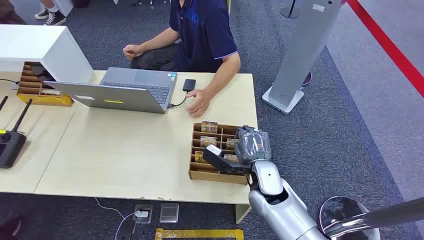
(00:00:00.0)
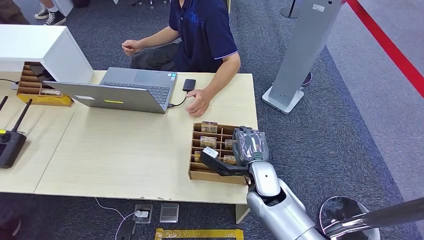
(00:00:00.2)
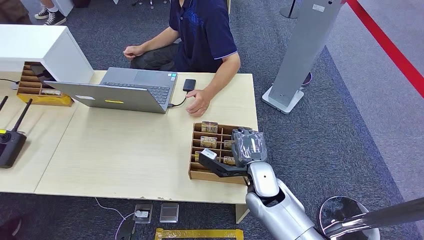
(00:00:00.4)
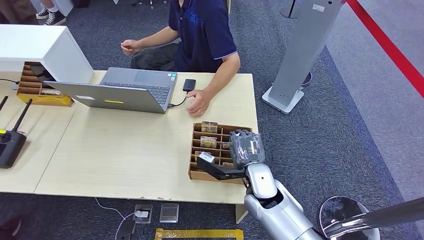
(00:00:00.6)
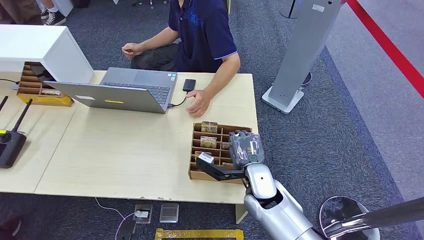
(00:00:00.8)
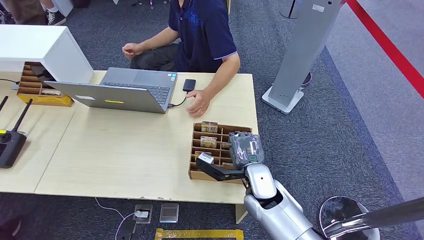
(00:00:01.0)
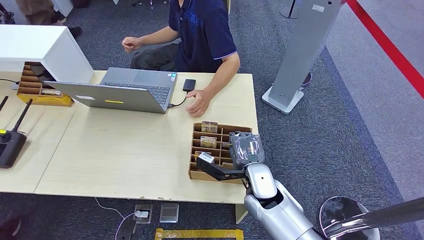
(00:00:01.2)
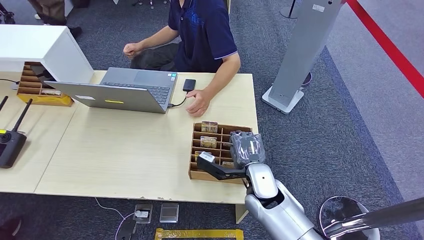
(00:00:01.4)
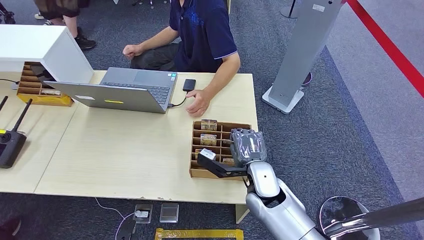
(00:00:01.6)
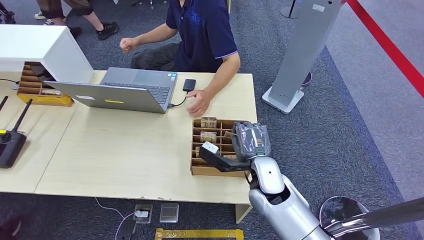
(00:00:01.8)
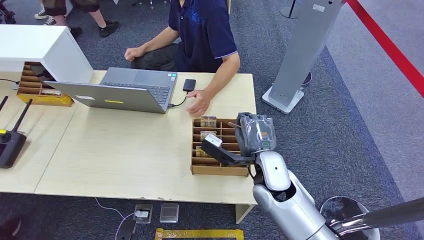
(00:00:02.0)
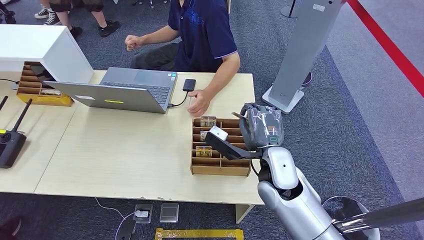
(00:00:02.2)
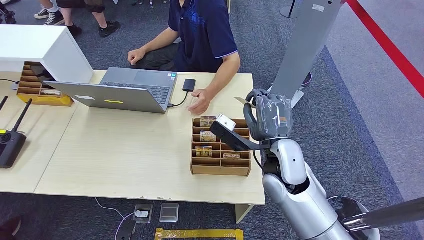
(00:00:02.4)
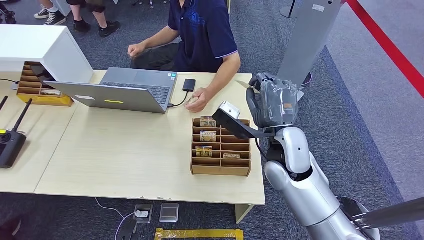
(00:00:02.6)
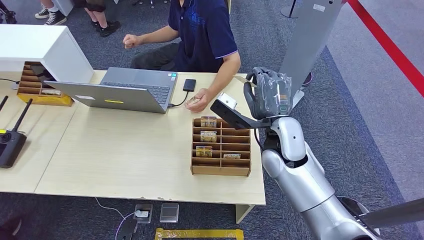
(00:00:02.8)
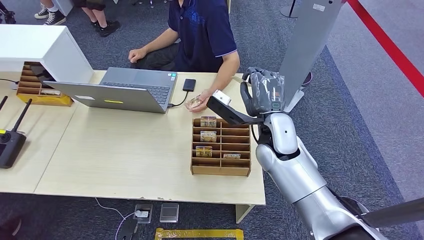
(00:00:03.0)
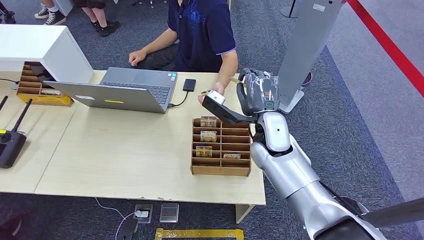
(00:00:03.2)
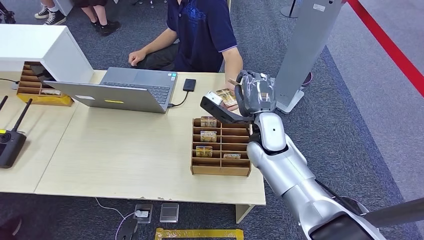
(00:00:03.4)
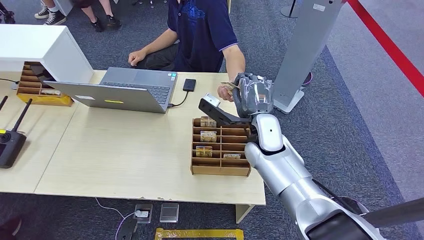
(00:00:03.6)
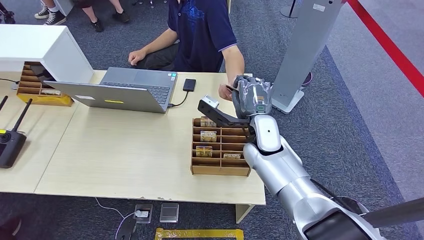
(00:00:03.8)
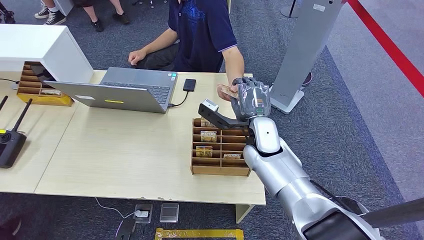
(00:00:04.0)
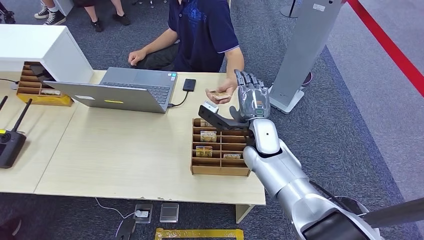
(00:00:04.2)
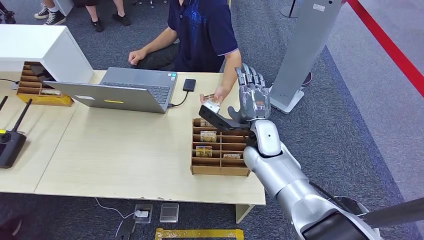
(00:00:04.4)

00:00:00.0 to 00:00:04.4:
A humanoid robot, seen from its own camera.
Step, 00:00:00.0 to 00:00:02.0: Pick up the room card from the card holder.
Step, 00:00:02.8 to 00:00:04.4: Hand the room card to the target.
00:00:01.4 to 00:00:03.0: The right hand heads forward and upward, covering some 10 cm.

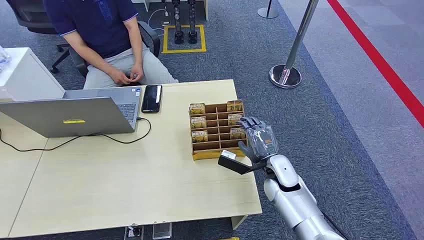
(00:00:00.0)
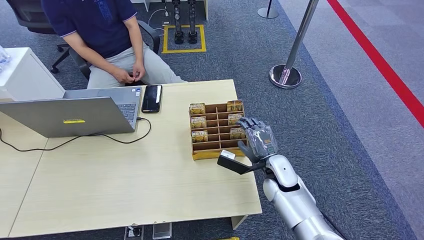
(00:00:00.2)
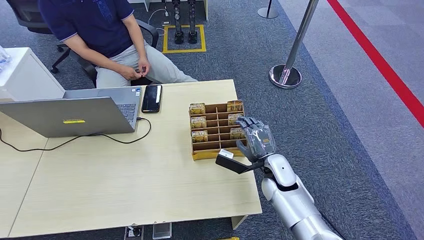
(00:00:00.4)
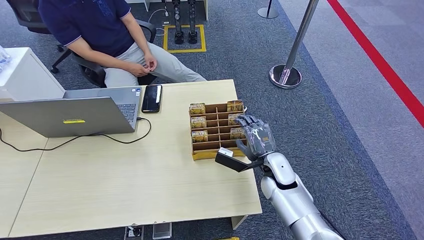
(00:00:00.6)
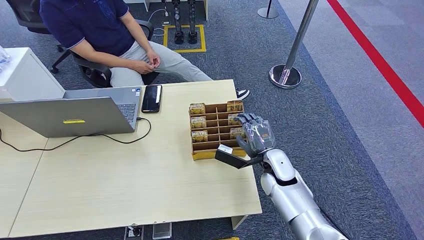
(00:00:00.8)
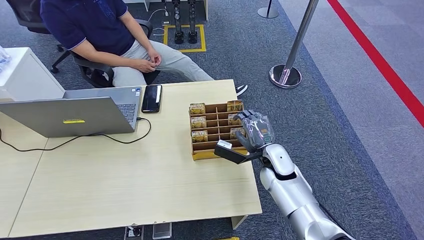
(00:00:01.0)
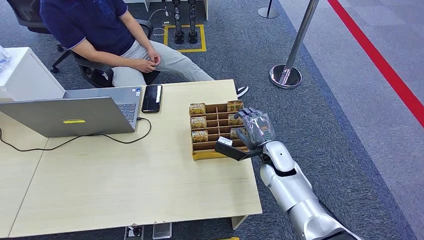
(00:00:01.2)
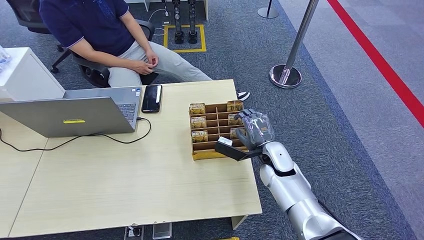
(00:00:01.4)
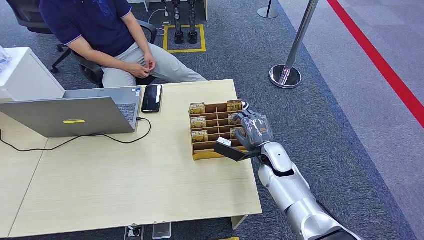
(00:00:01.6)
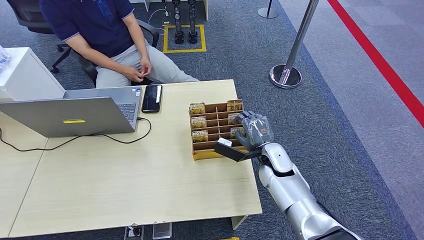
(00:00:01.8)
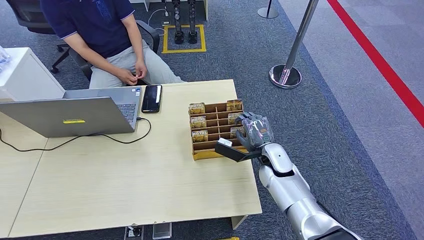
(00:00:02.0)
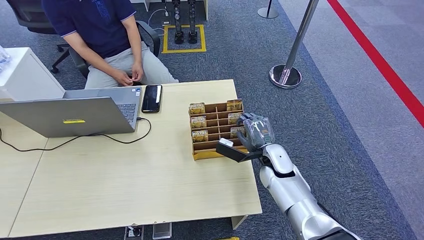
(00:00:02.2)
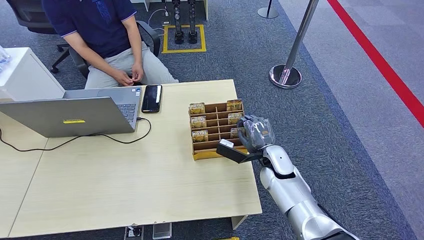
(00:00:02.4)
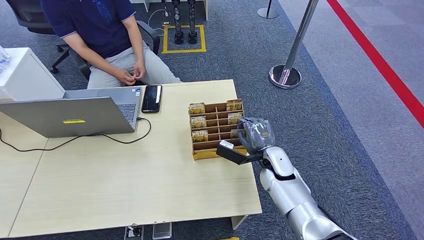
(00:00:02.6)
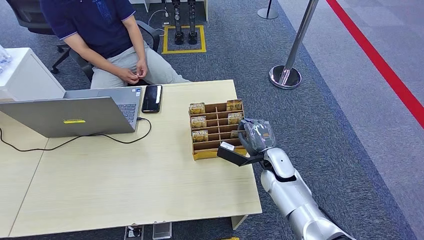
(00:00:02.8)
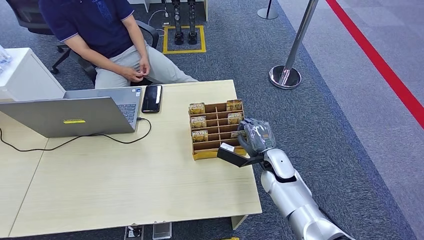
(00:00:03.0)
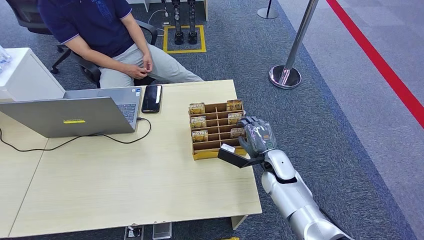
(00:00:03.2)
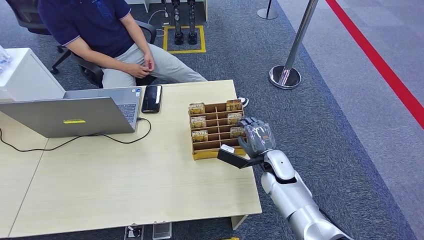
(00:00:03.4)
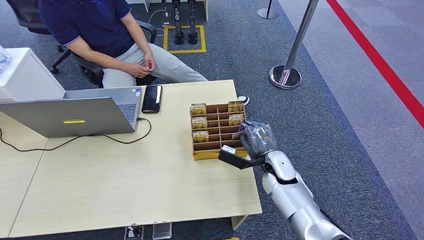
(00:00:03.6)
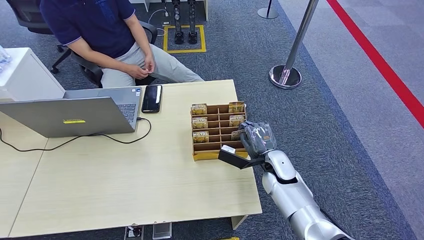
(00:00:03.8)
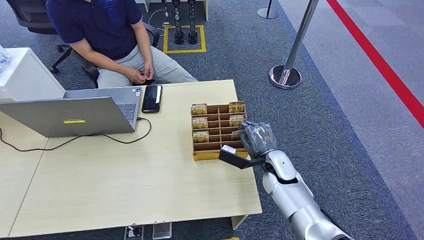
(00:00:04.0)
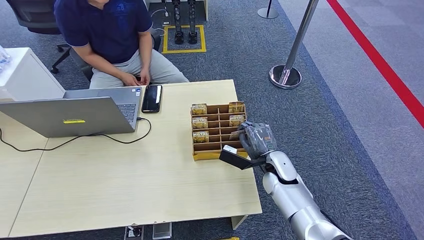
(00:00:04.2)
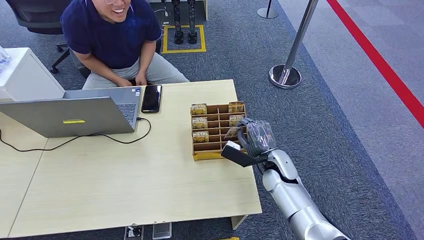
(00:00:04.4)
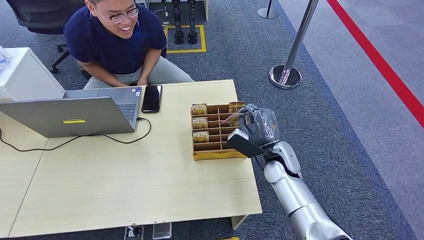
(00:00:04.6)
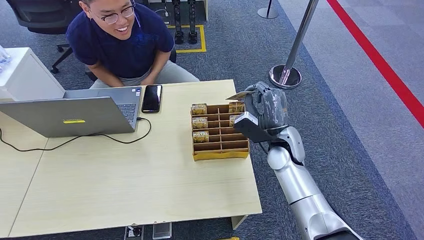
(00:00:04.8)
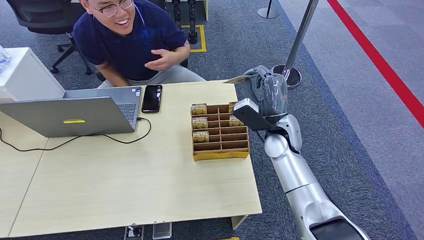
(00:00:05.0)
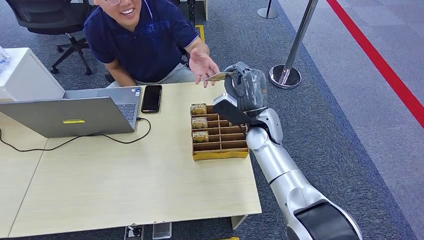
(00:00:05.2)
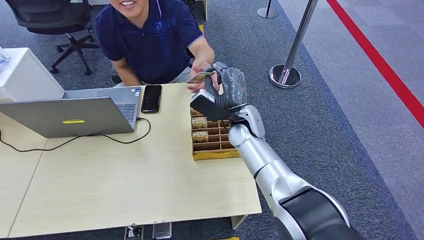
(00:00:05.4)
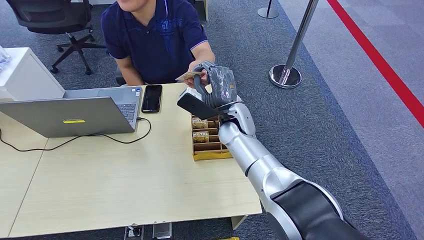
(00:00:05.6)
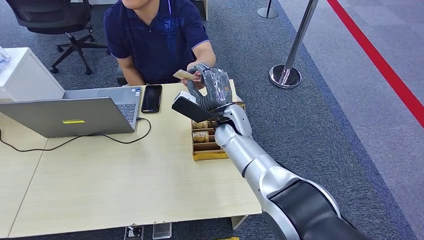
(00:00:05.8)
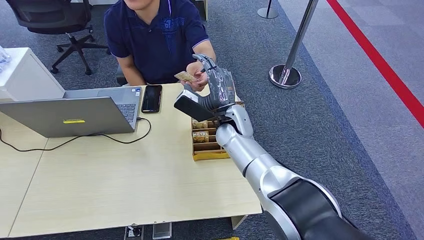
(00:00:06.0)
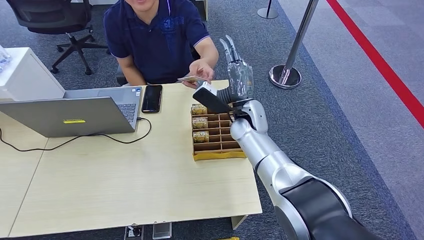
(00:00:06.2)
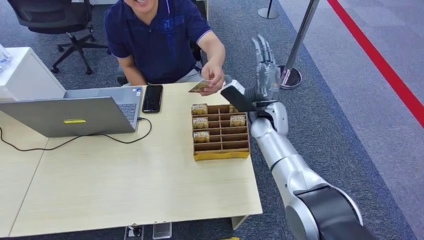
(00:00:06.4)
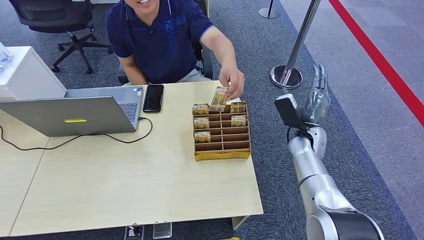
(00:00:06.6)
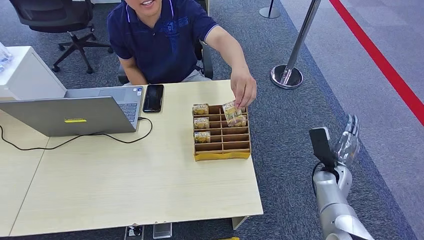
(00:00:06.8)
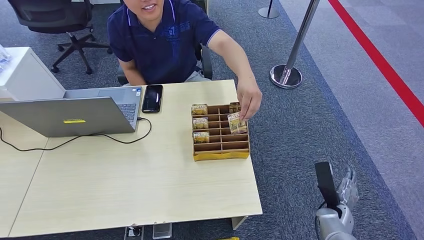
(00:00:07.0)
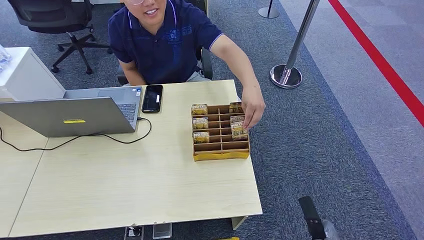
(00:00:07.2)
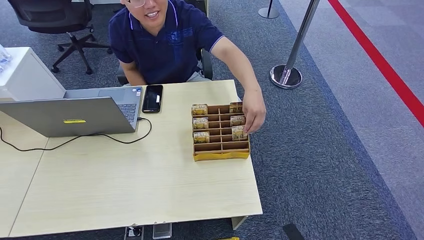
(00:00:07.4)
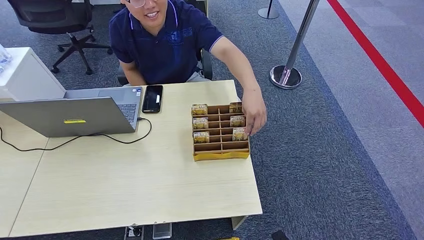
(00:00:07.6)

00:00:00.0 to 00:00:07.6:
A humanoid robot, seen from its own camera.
Step, 00:00:00.0 to 00:00:04.4: Pick up the room card from the card holder.
Step, 00:00:04.8 to 00:00:07.6: Hand the room card to the target.
00:00:01.6 to 00:00:03.0: The hands move only a little.
00:00:03.0 to 00:00:04.6: The right hand is displaced upward by some 10 cm.
00:00:04.6 to 00:00:06.0: The right hand moves to the left and forward, about 10 cm.
00:00:06.0 to 00:00:07.6: The right hand heads backward and downward, covering roughly 50 cm.
